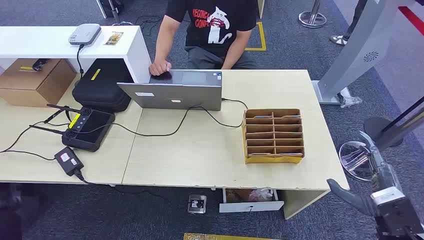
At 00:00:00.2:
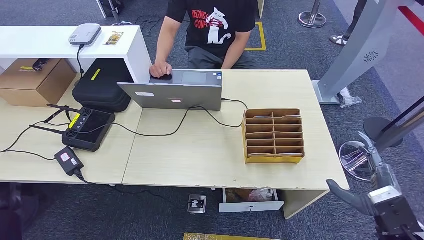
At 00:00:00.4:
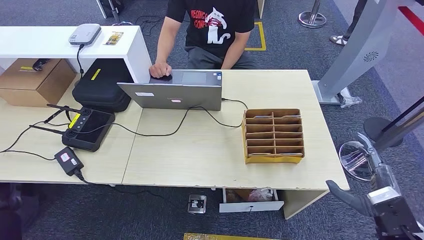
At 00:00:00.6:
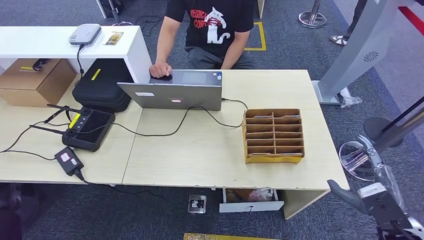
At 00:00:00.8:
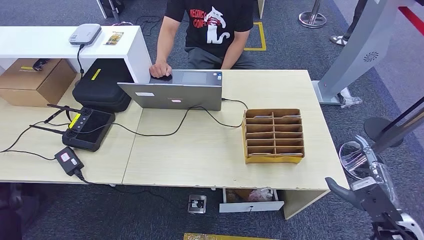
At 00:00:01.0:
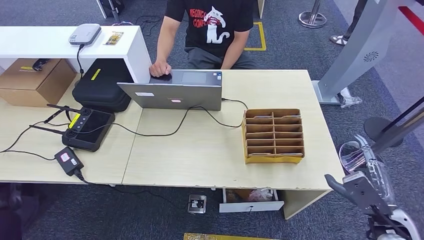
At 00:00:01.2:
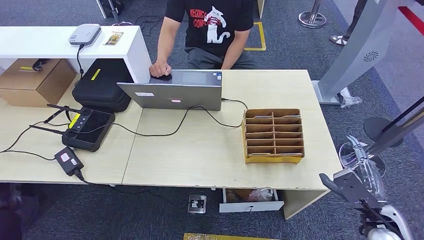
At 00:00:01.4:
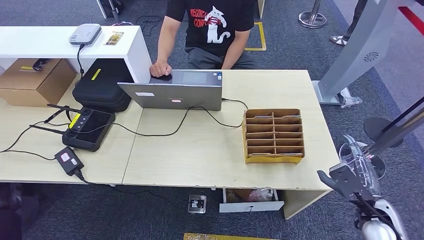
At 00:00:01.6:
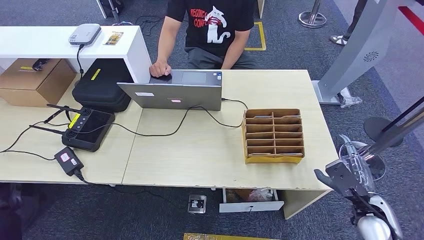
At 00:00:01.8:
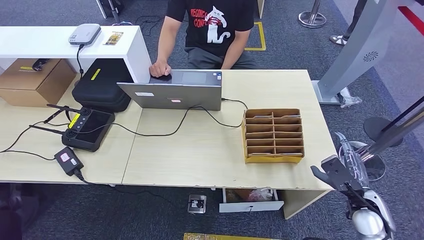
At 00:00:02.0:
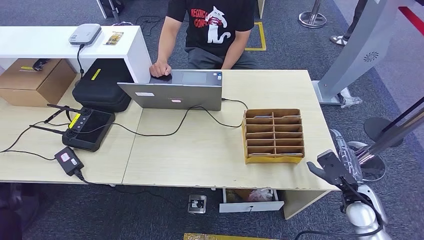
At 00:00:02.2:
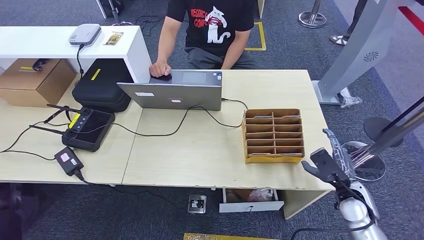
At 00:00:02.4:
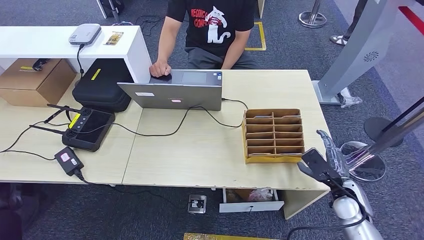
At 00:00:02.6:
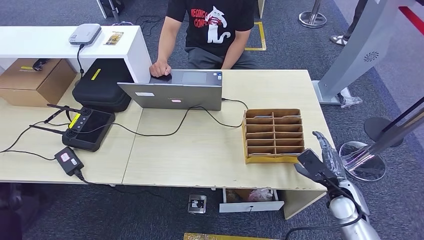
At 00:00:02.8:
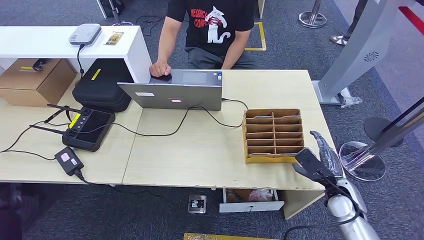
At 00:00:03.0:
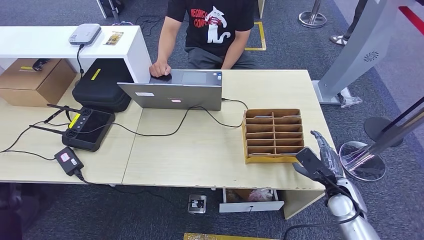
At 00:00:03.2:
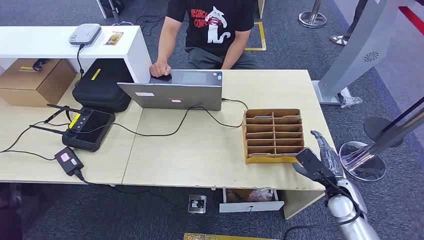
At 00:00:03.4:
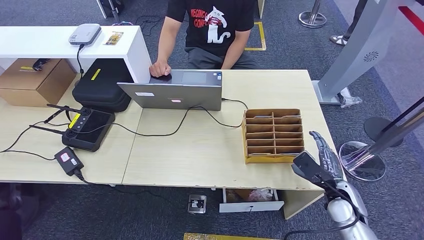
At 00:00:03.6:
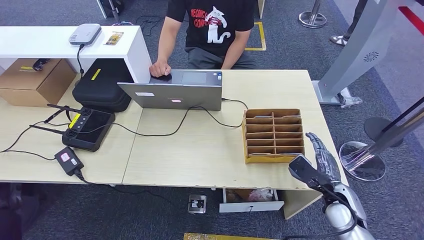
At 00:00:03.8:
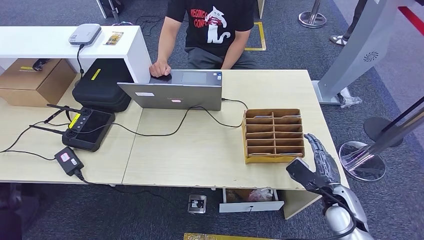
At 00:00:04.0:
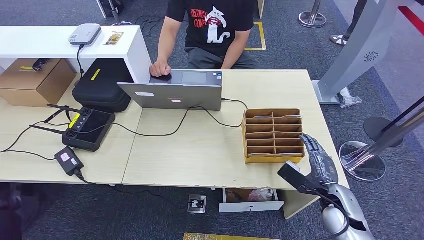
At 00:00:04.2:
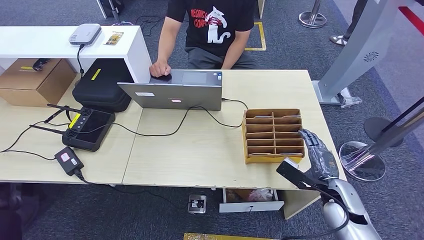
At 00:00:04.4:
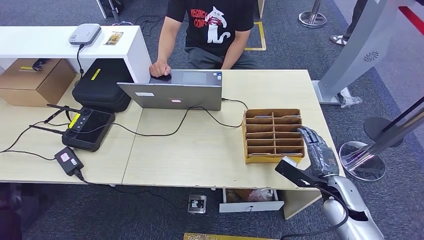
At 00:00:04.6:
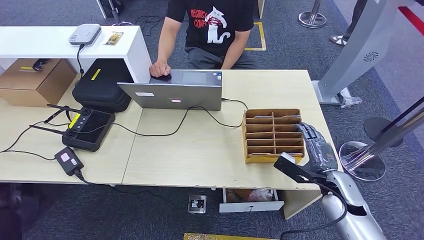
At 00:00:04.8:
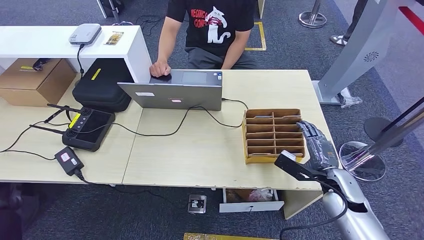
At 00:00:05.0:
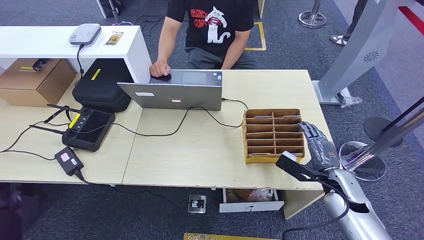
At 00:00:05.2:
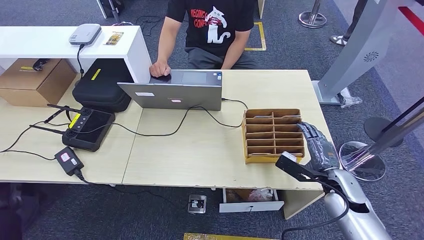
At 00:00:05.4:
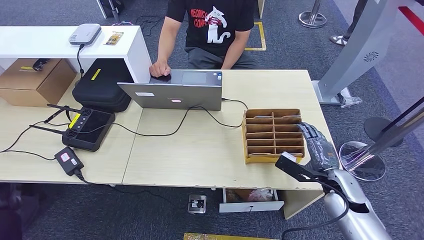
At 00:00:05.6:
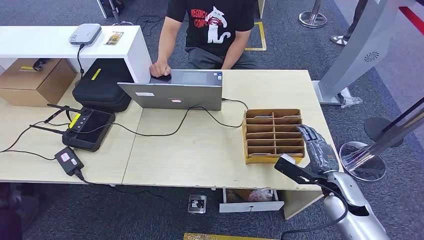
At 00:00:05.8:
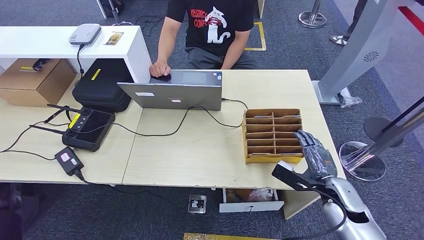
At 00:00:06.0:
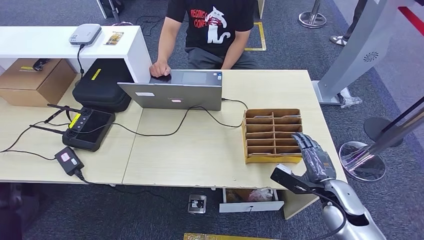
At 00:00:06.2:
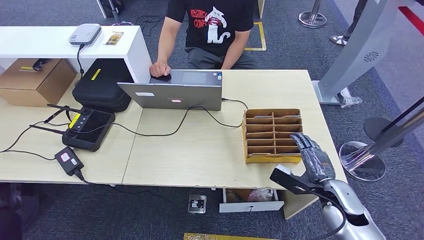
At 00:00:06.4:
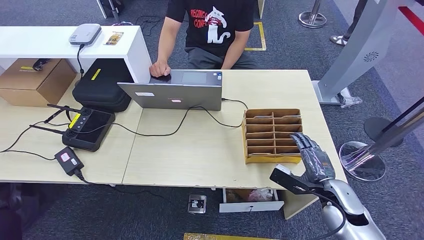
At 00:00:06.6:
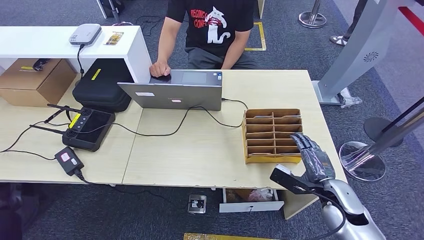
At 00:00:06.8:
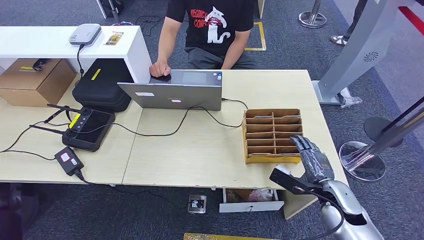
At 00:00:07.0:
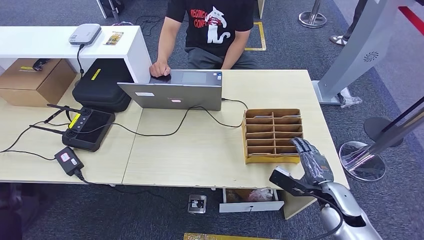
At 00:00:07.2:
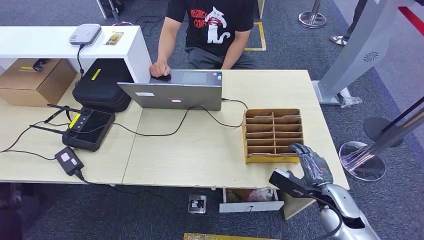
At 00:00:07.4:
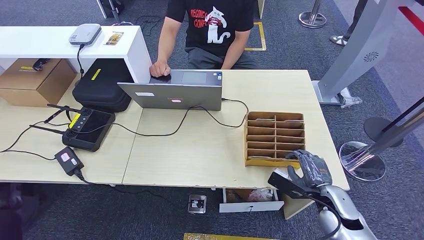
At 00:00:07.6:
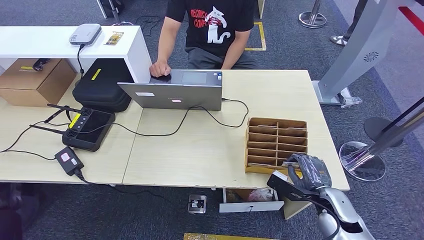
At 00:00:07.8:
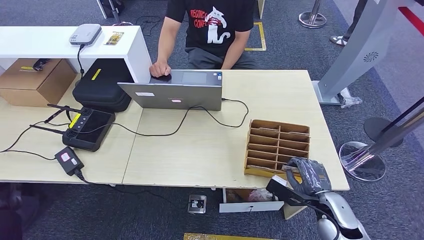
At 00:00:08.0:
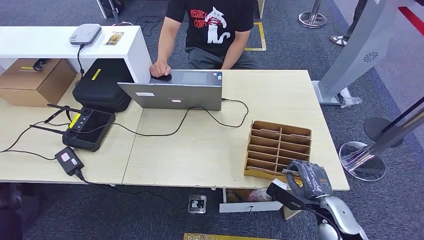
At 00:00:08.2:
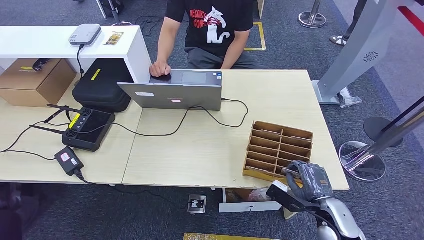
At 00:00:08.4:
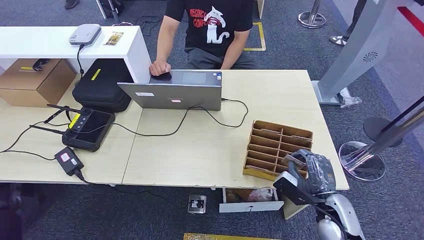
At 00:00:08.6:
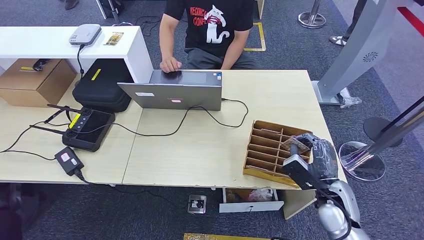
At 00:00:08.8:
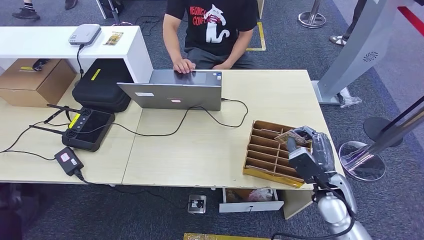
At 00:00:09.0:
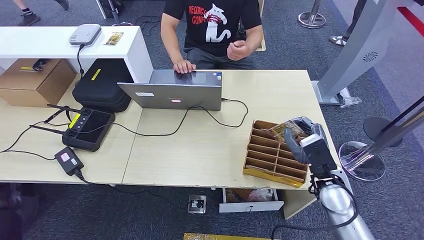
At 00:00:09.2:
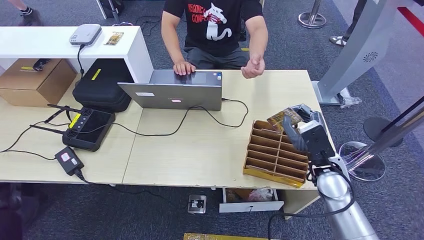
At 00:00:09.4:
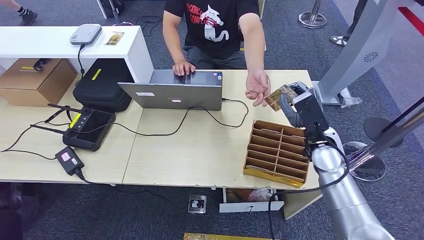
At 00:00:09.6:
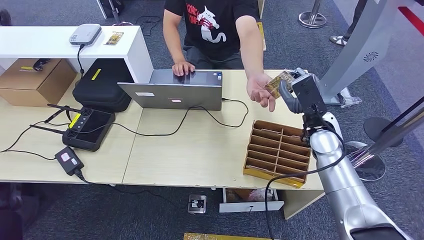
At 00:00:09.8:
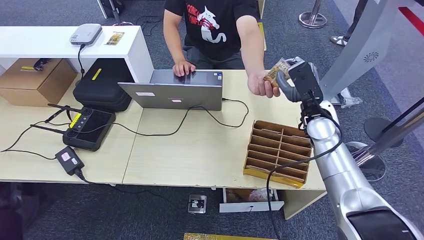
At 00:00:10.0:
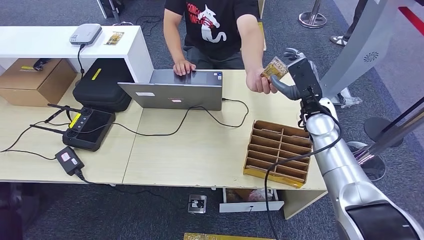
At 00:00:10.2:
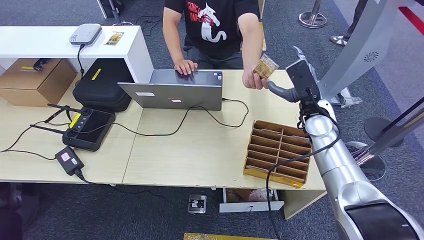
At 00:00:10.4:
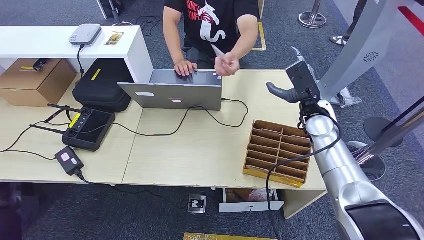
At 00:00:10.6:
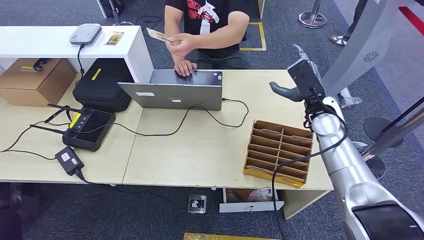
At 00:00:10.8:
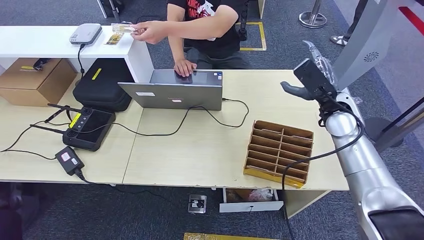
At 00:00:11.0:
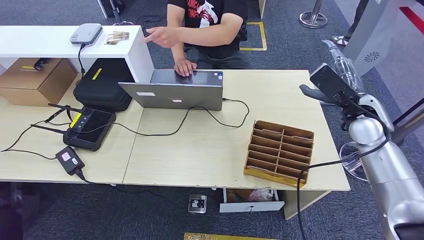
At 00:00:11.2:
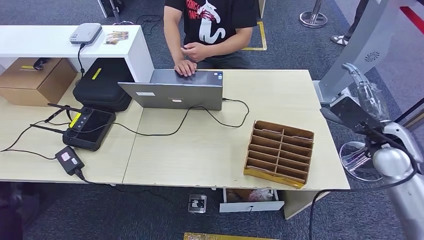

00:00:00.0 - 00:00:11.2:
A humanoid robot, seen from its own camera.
Step, 00:00:00.0 - 00:00:08.6: Pick up the key card from the card box.
Step, 00:00:08.8 - 00:00:11.2: Hand the key card to the target.
00:00:01.6 - 00:00:03.2: The right hand moves forward, roughly 5 cm.
00:00:04.8 - 00:00:06.4: The hands make only small movements.
00:00:06.4 - 00:00:08.0: The hands make only small movements.
00:00:08.0 - 00:00:09.6: The right hand goes about 20 cm forward and upward.
00:00:09.6 - 00:00:11.2: The right hand is displaced to the right and backward by about 15 cm.

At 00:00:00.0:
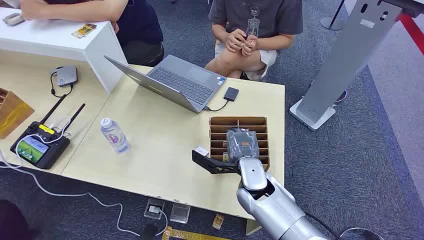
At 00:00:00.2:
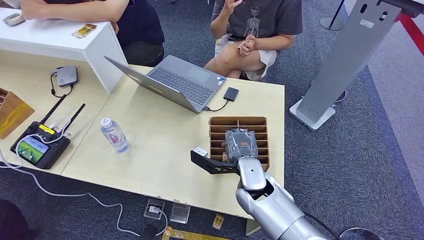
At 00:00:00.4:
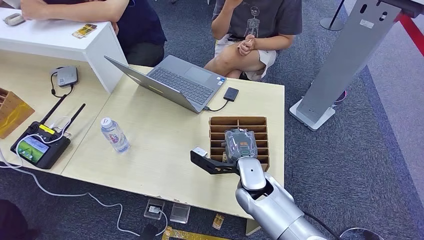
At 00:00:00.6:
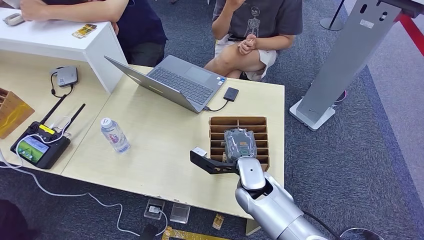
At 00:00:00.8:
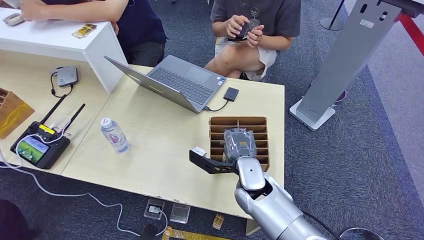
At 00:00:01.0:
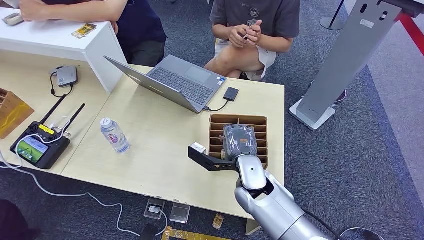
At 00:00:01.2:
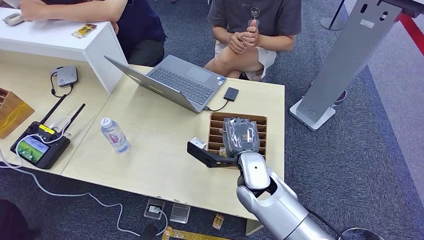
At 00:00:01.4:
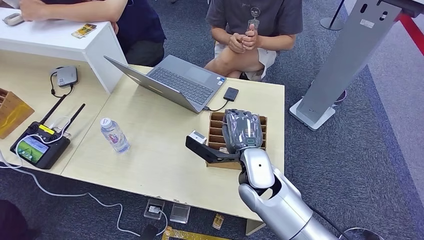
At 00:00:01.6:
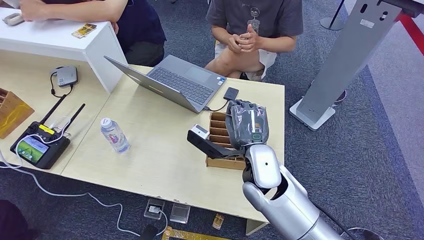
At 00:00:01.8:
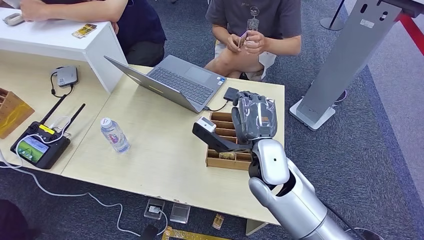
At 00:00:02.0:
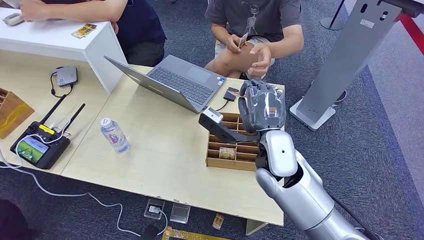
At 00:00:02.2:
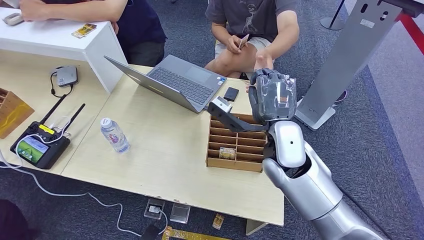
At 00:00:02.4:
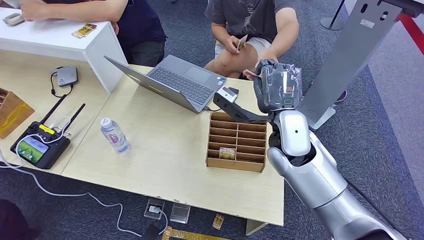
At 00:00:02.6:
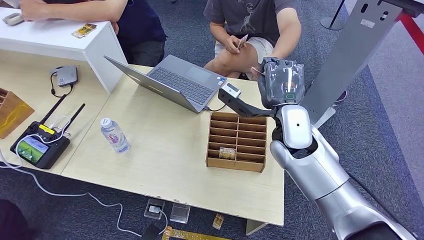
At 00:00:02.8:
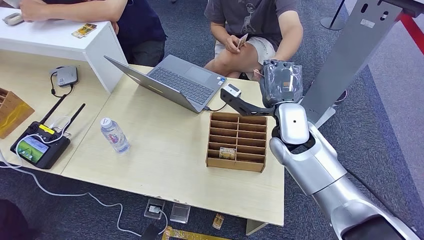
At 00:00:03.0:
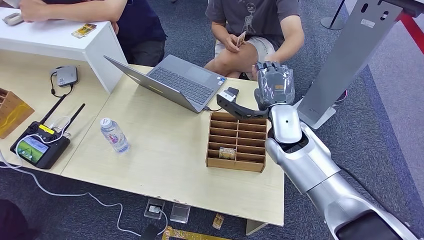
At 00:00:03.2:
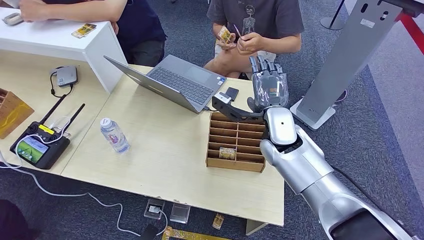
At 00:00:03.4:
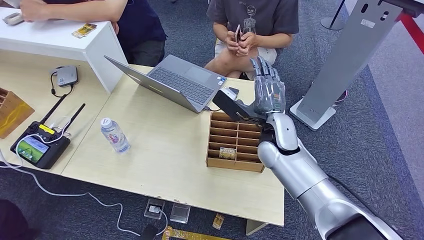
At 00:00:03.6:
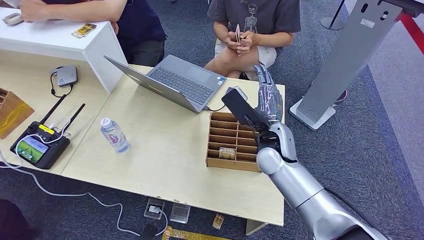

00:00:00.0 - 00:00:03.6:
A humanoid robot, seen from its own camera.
Step, 00:00:00.0 - 00:00:01.4: Pick up the key card from the card box.
Step, 00:00:02.0 - 00:00:03.6: Hand the key card to the target.
00:00:01.8 - 00:00:03.6: The right hand moves forward, about 5 cm.
